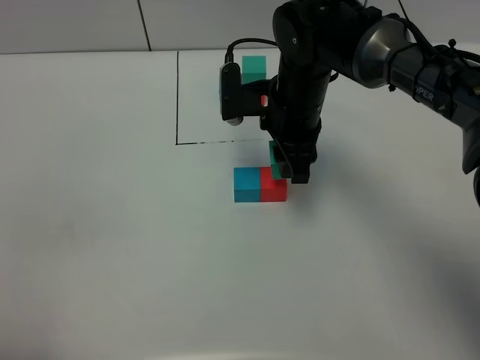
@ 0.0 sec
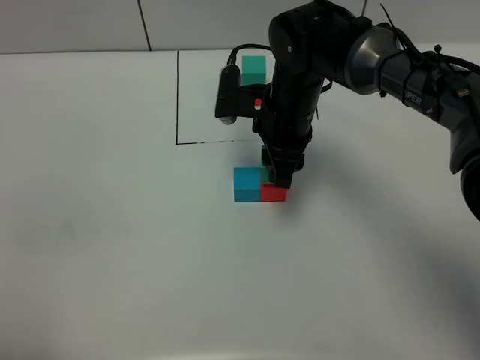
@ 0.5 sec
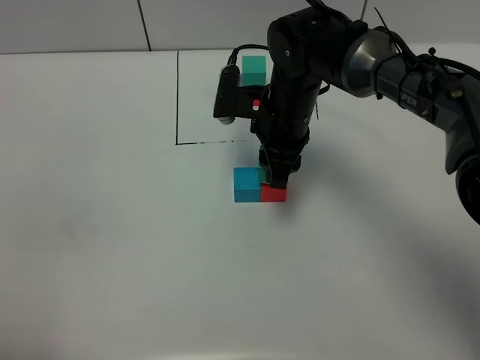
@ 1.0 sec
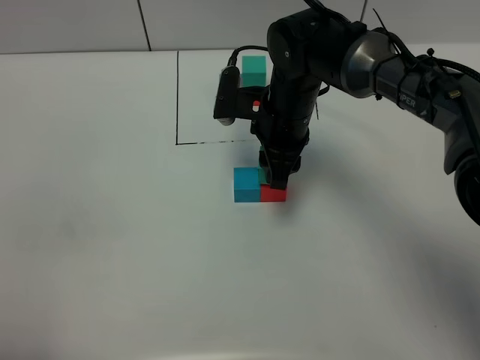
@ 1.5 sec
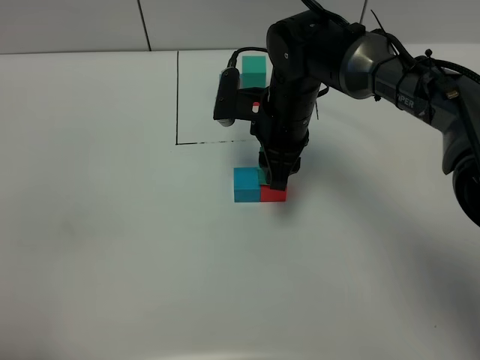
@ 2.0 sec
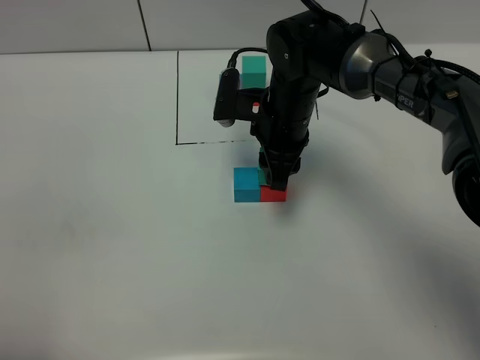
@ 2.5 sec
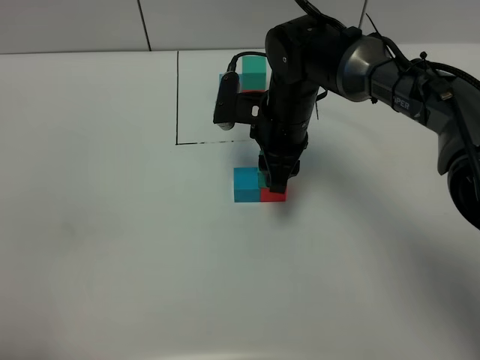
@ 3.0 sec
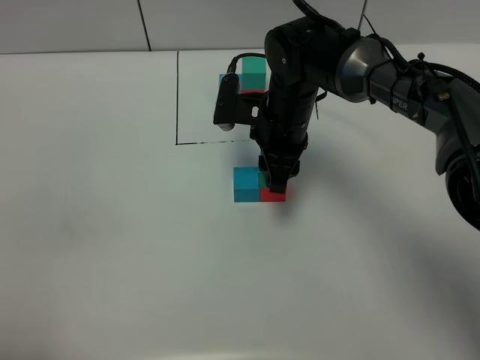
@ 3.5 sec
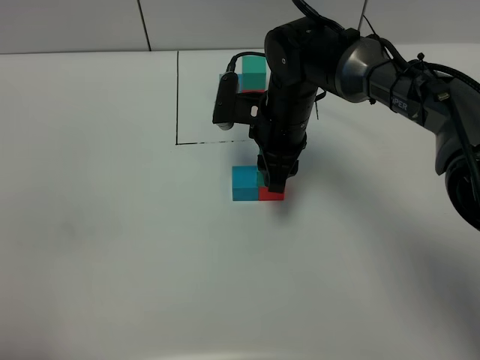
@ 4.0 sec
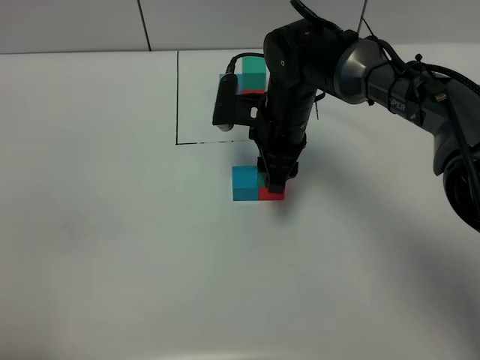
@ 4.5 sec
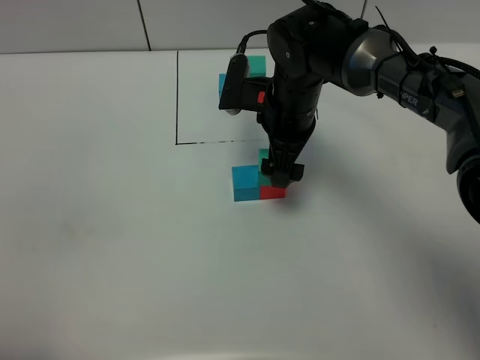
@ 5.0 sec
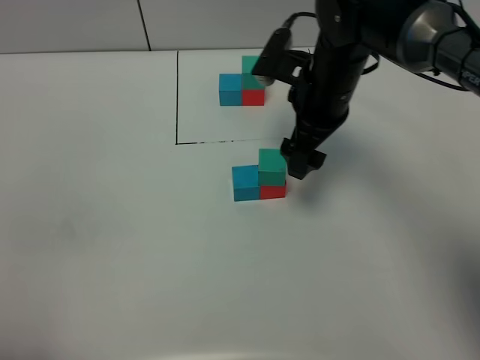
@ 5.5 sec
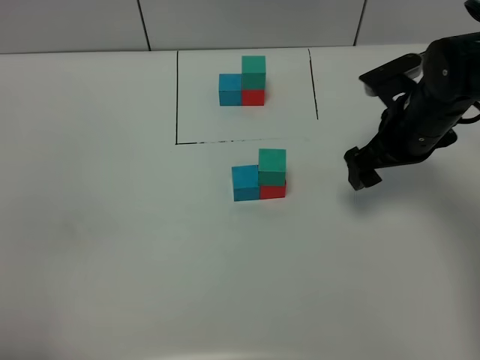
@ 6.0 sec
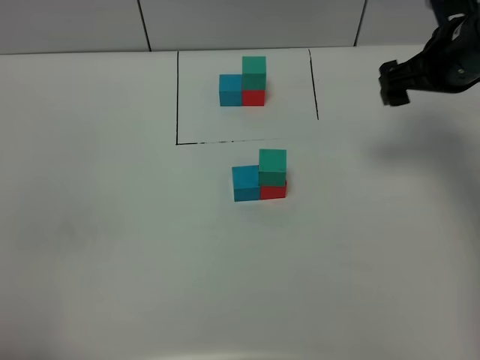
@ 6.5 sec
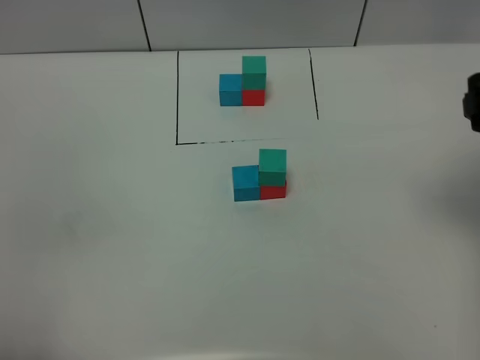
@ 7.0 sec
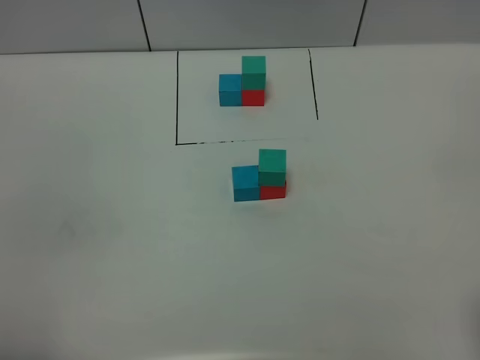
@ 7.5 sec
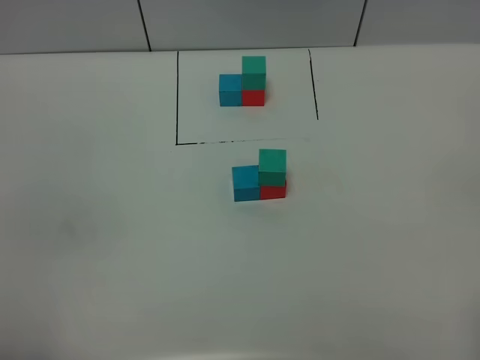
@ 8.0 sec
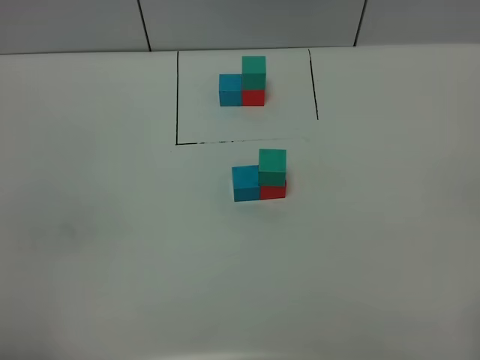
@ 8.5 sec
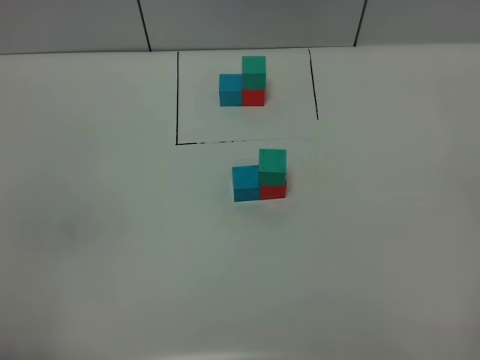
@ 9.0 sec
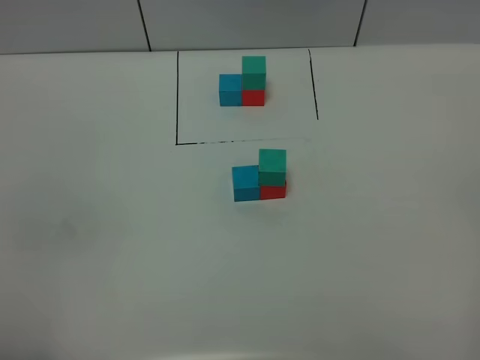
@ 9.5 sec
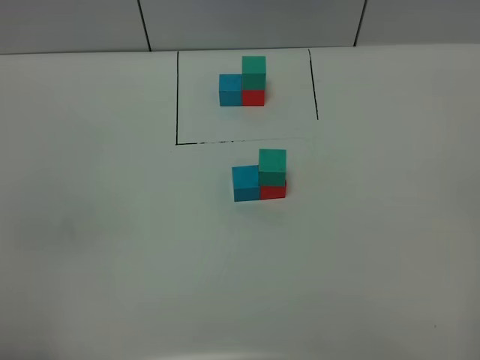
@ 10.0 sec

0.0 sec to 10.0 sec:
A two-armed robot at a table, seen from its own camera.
Task of the whole recording: According to the building block template in front, assemble the scattered blocks together.
Step, 0.0 sec to 5.0 sec: Put the green build block on the red build block.
0.0 sec to 2.0 sec: The grippers make only small movements.
2.0 sec to 4.0 sec: The two grippers keep their place.
4.0 sec to 6.0 sec: The right gripper goes some 15 cm to the right, and opens its fingers.
6.0 sec to 8.0 sec: The right gripper heads backward, covering approximately 35 cm.
